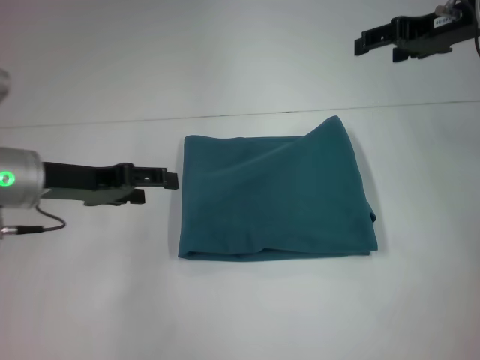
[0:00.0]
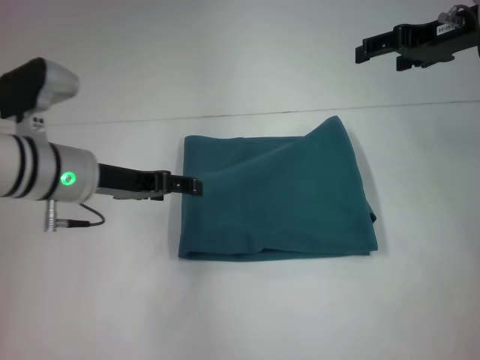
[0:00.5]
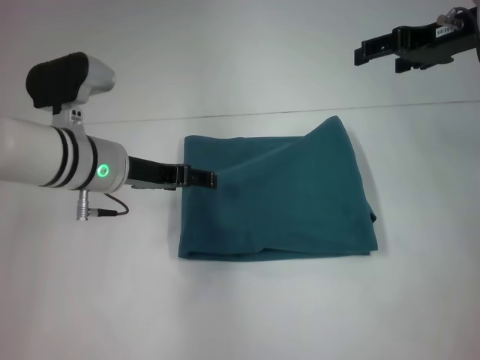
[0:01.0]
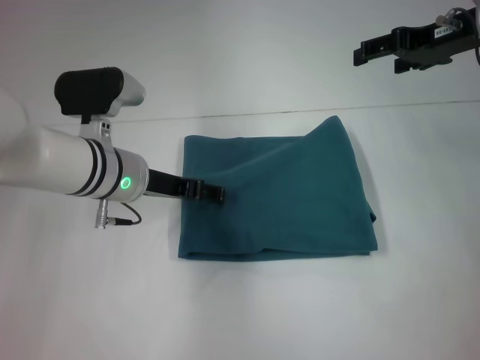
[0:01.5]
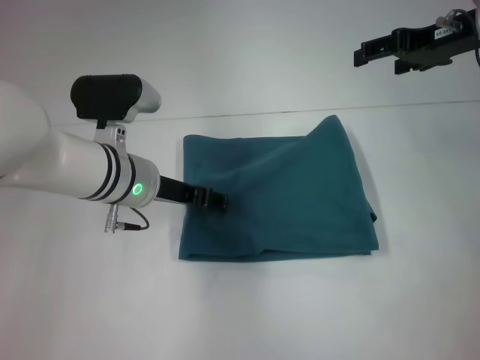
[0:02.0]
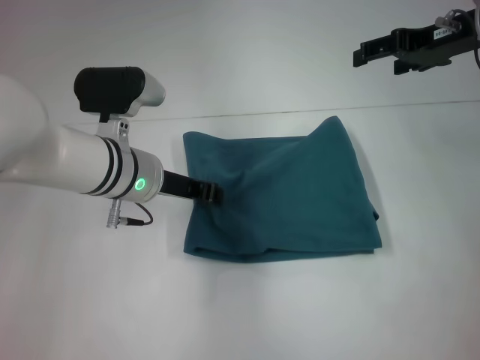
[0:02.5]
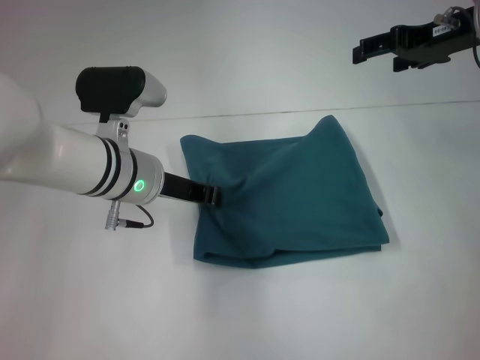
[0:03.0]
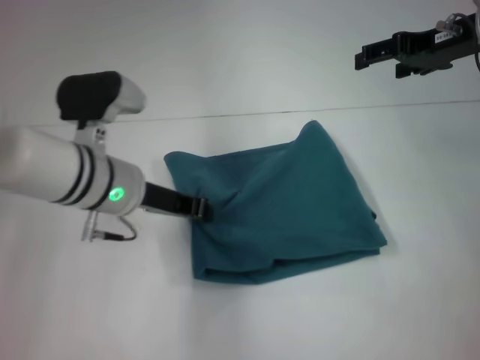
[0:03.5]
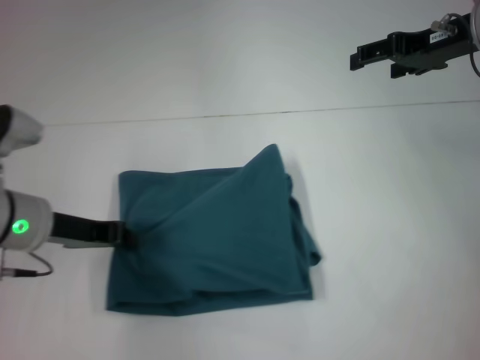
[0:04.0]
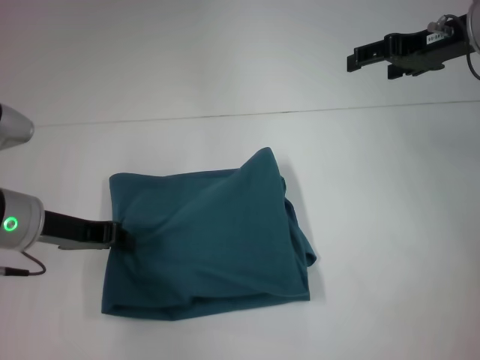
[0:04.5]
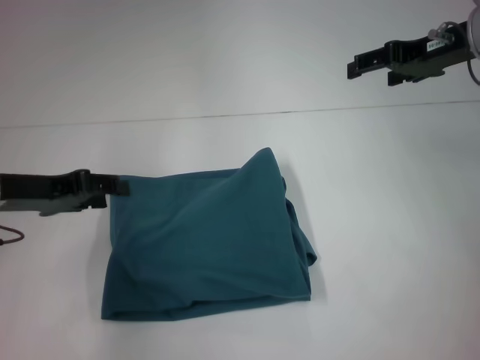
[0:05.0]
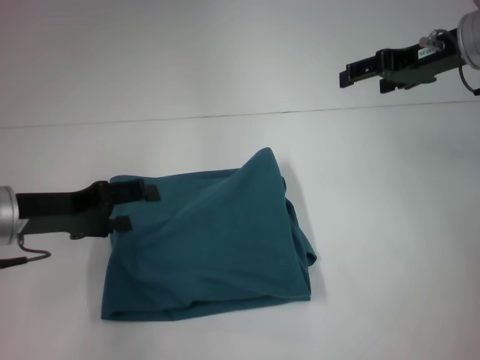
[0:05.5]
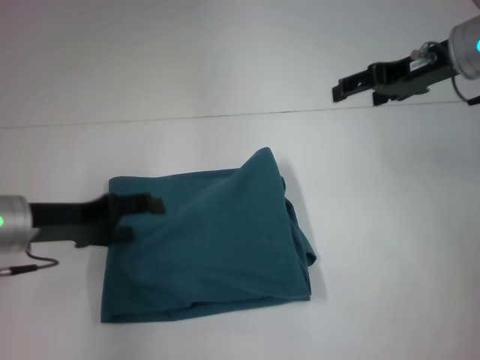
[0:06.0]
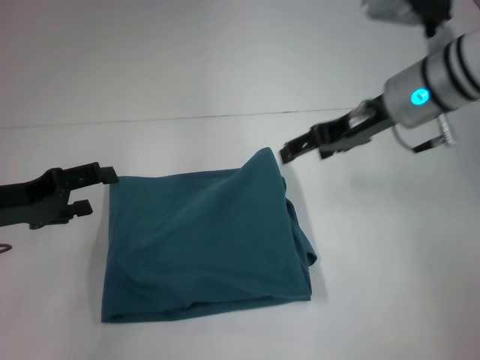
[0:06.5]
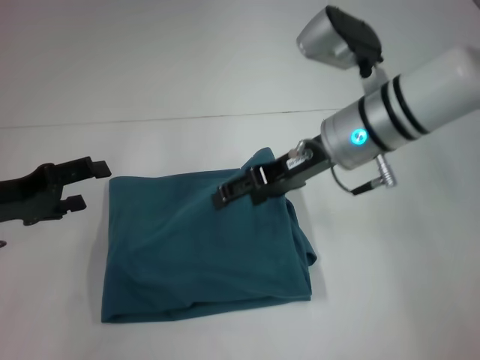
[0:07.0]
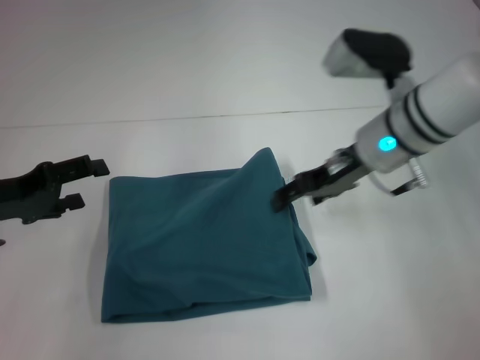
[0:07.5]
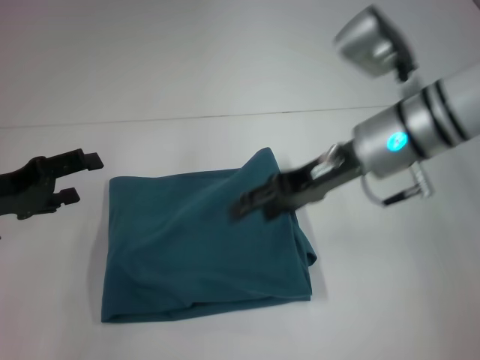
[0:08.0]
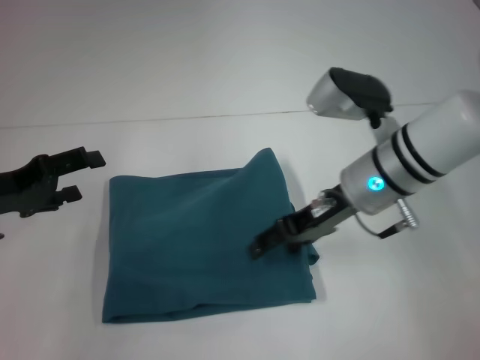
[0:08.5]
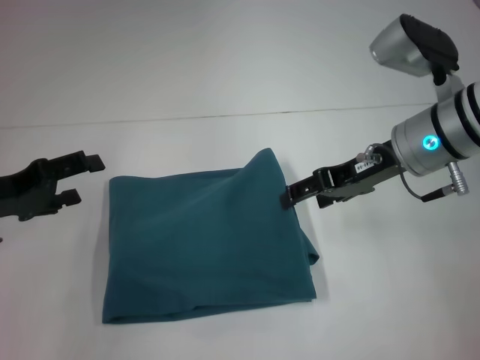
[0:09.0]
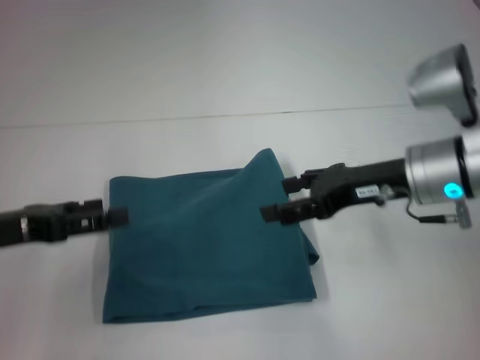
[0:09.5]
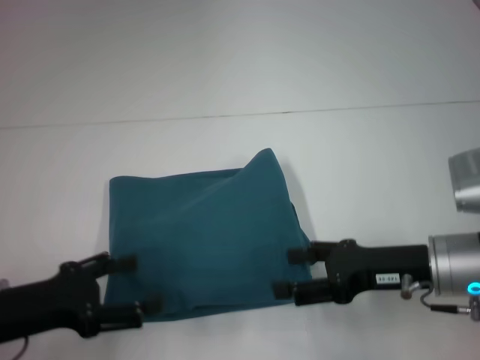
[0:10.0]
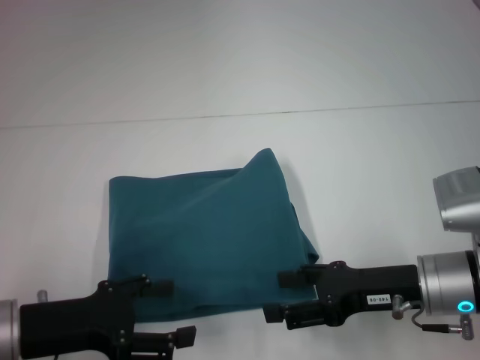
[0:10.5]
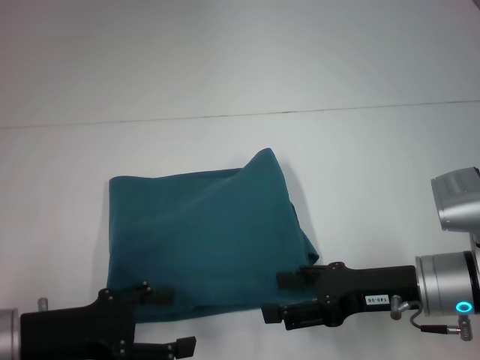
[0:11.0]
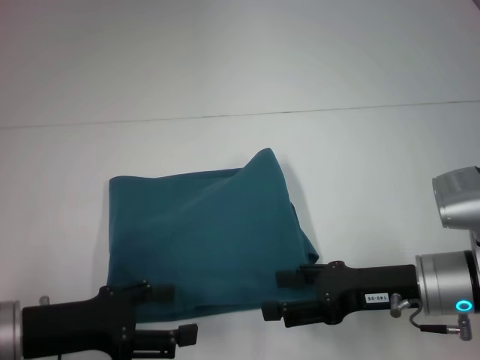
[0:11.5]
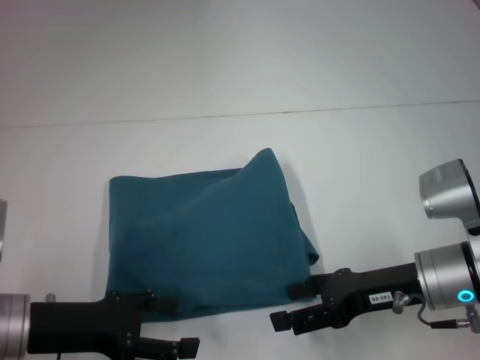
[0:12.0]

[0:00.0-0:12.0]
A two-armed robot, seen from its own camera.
0:00.0 to 0:02.0: The left gripper goes roughly 10 cm to the right.
0:02.0 to 0:04.0: The left gripper moves to the left, some 10 cm, and closes its fingers.
0:04.0 to 0:06.0: The left gripper opens.
0:06.0 to 0:08.0: The right gripper shifts some 10 cm to the left, backward and downward, while the left gripper is displaced to the left by roughly 5 cm.
0:08.0 to 0:10.0: The left gripper is displaced backward by approximately 10 cm. The right gripper is displaced backward, downward and to the right by approximately 15 cm.
0:10.0 to 0:12.0: The grippers make only small movements.
